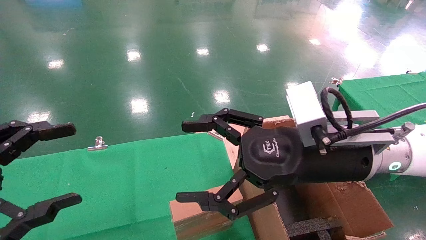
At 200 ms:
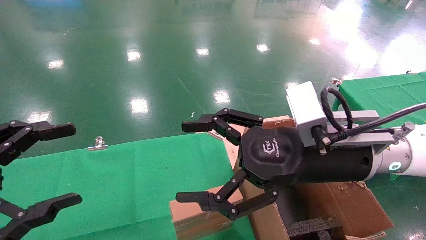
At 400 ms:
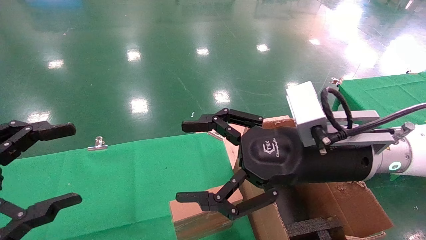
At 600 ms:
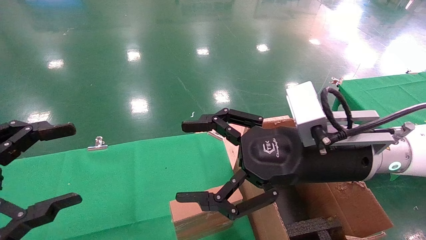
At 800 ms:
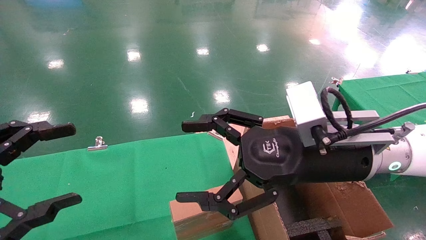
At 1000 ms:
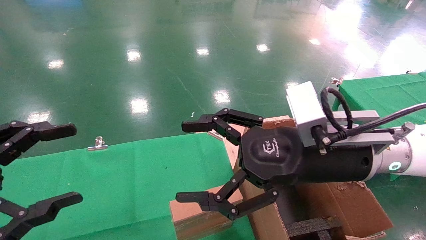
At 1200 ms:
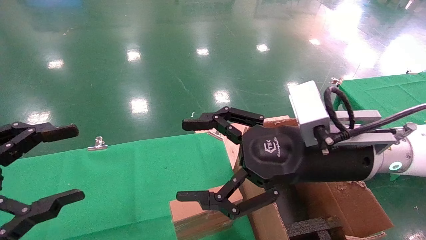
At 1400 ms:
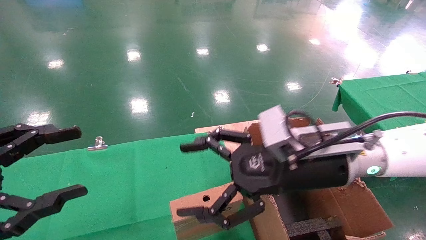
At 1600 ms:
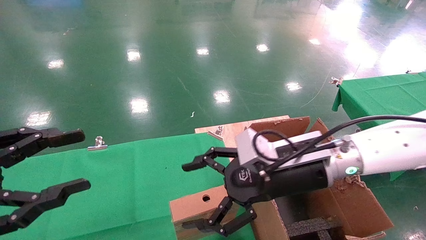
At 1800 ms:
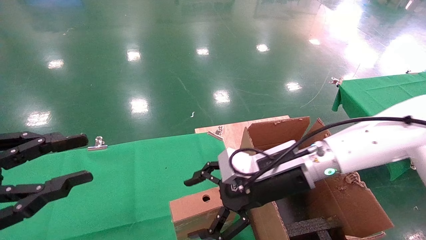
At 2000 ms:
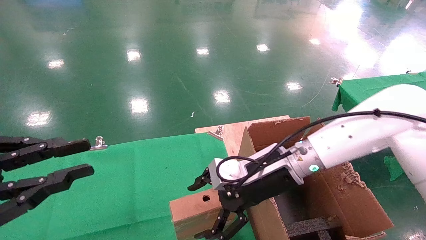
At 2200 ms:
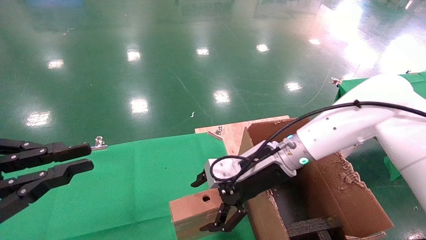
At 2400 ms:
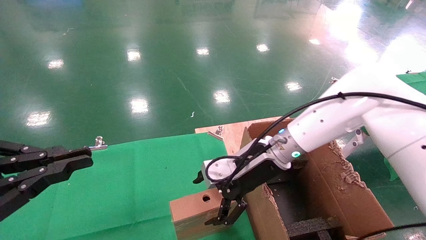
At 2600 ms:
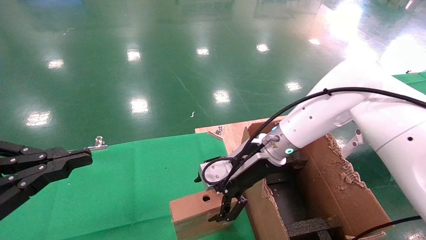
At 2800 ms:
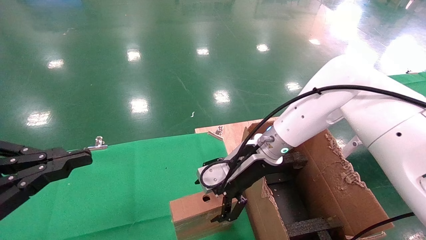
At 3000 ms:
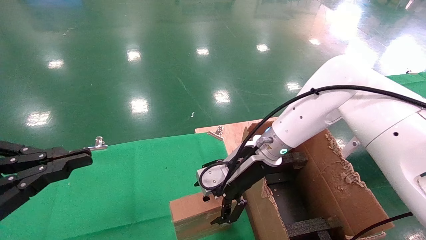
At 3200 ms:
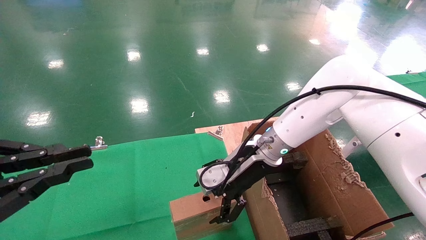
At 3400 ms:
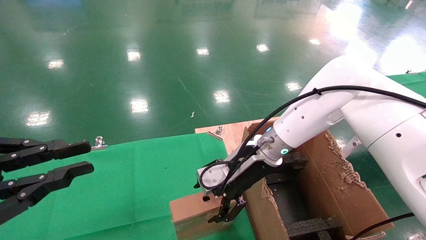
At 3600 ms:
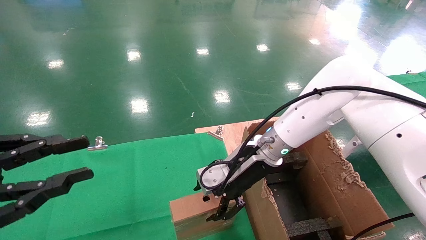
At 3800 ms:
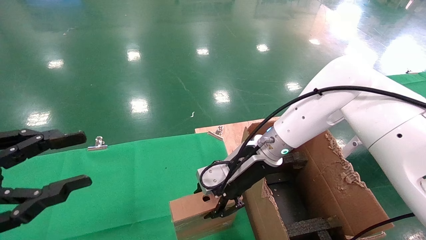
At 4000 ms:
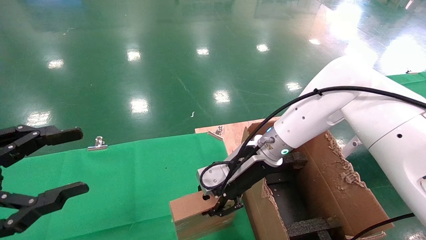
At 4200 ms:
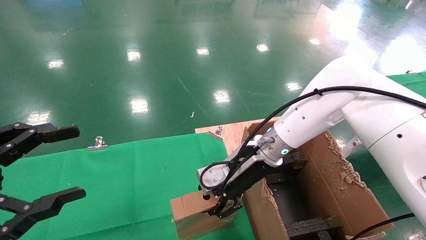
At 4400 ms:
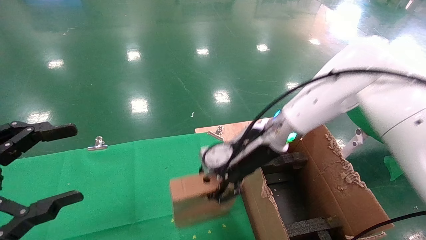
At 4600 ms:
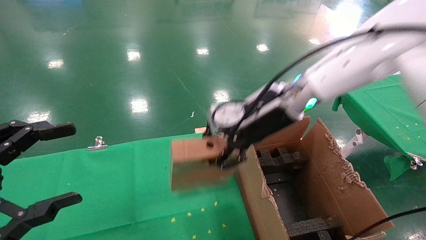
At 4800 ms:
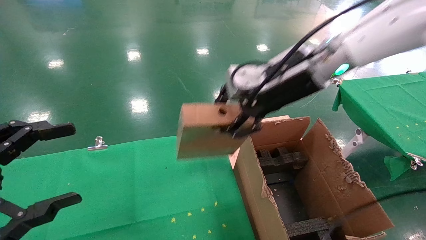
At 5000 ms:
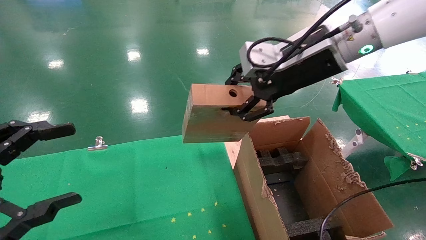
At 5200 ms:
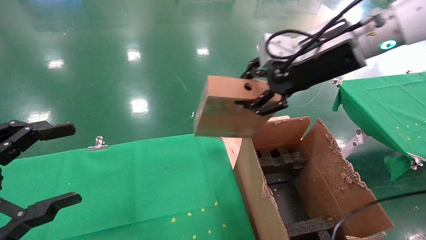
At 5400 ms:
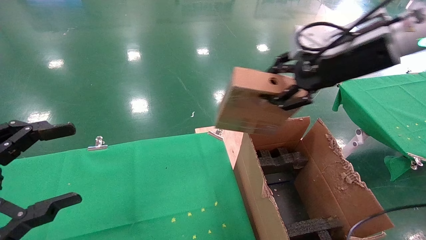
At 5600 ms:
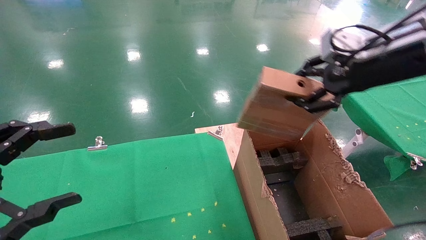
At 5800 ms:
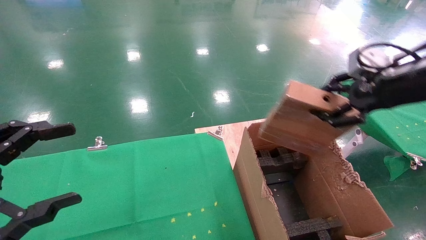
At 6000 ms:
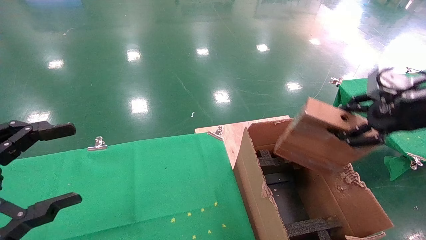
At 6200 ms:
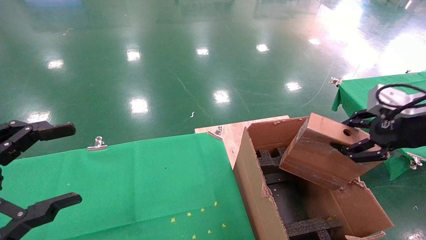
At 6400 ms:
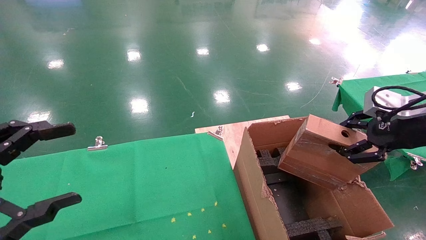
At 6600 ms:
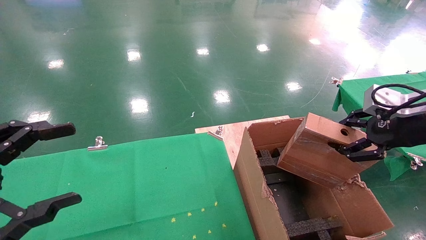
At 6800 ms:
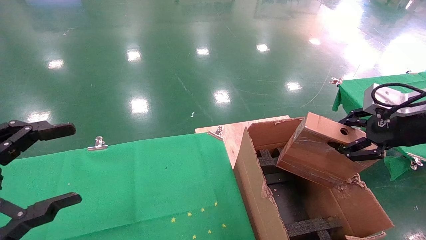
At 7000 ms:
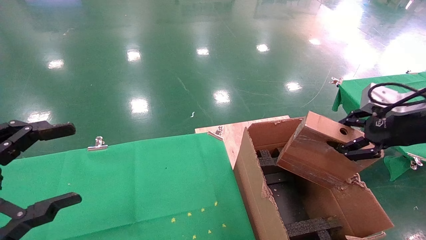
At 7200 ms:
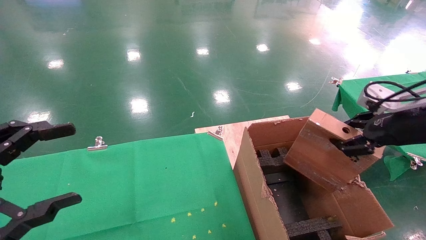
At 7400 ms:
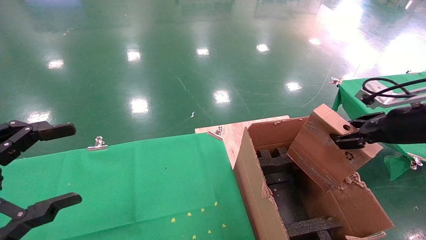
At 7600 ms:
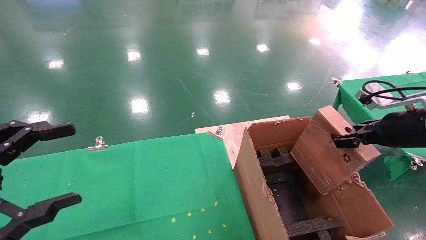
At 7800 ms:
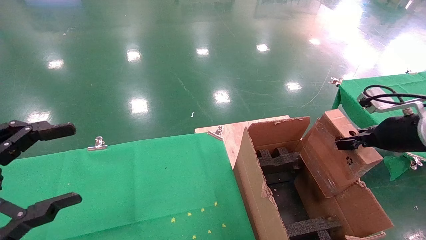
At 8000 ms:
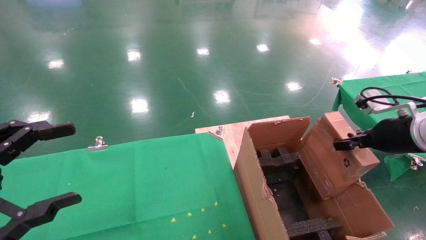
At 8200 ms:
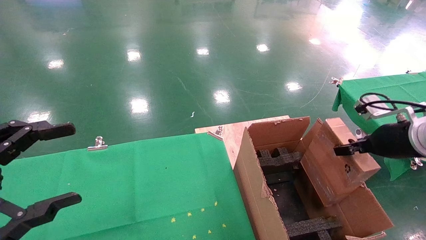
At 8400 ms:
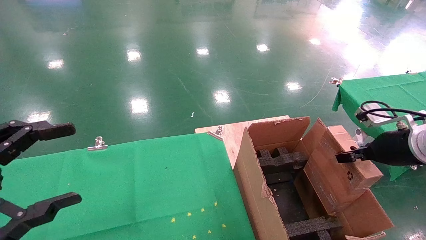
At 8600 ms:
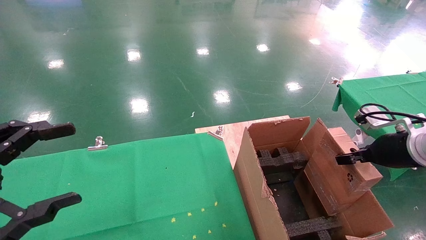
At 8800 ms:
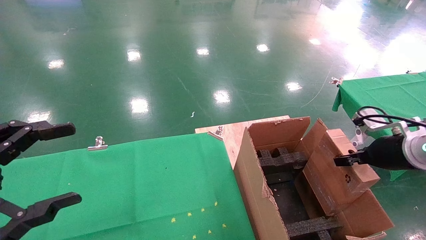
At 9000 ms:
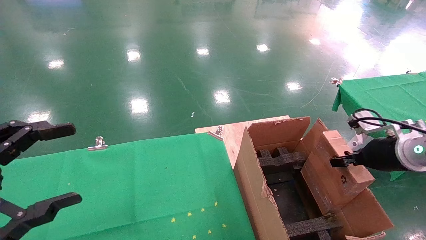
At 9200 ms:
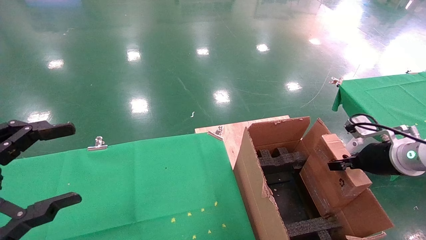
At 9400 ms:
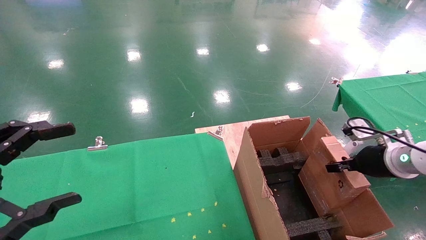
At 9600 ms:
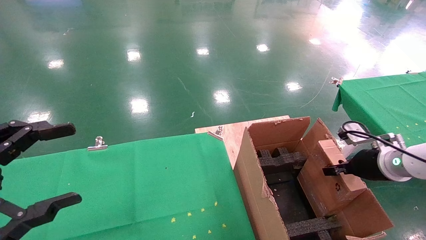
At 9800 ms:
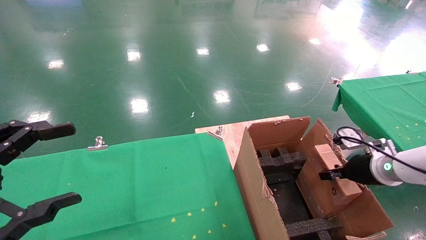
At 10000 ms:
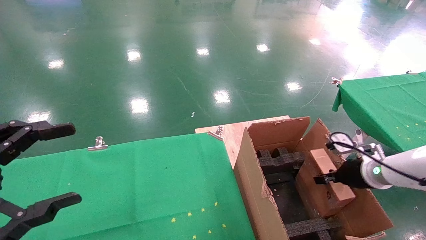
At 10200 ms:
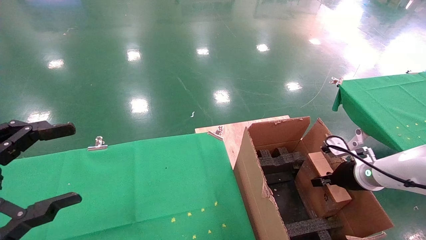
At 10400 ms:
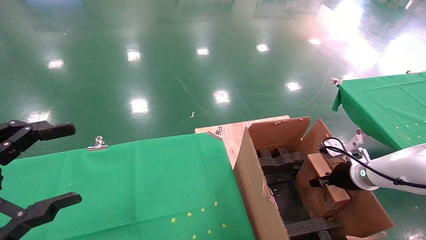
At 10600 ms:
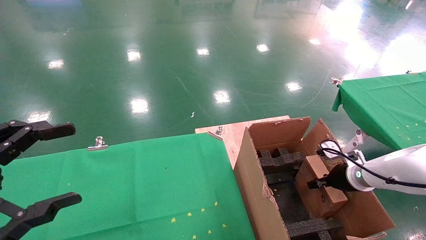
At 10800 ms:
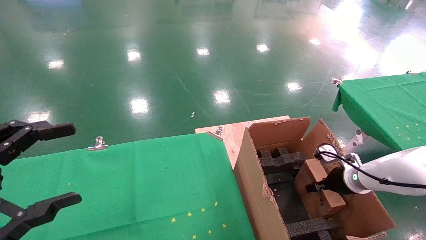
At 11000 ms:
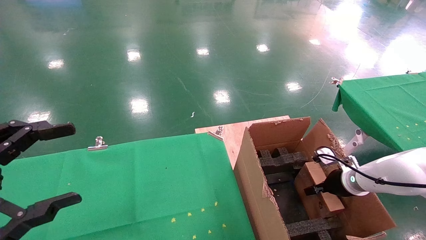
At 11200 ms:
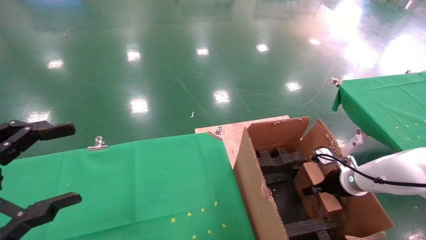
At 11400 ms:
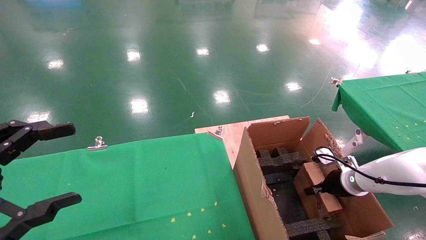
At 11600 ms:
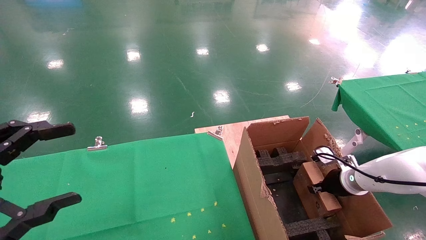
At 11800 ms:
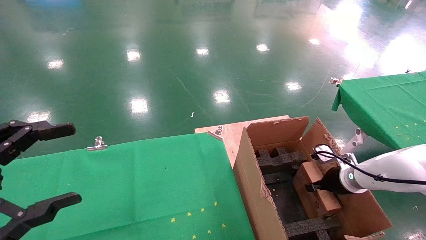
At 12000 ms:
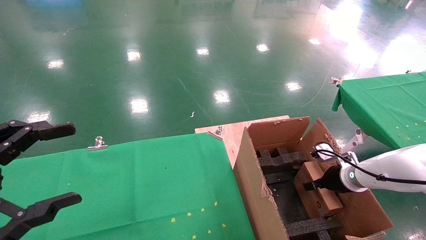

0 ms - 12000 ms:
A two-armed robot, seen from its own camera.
Task of the whole recording: using a robotic arm to pick up a cardboard box and palace it the carton.
Step, 1000 ms - 4000 ms: Pick up the mouse and the power cord paper box.
0 ms - 1600 ms: The right gripper shifts by roughly 5 cm.
1600 ms - 3000 ms: The right gripper is displaced forward by some 10 cm, while the left gripper closes its fingers.
3000 ms - 4400 ms: The right gripper shifts approximately 5 cm upward, and closes, while the left gripper opens its fingers.
4400 ms - 6000 ms: The right gripper heads to the right and backward, covering approximately 30 cm.
6000 ms - 7600 ms: The right gripper is displaced downward by roughly 5 cm.
7600 ms - 9000 ms: The right gripper heads downward, covering approximately 5 cm.
9000 ms - 10400 ms: The right gripper shifts approximately 10 cm downward and forward.
10400 ms - 12000 ms: The right gripper opens up.

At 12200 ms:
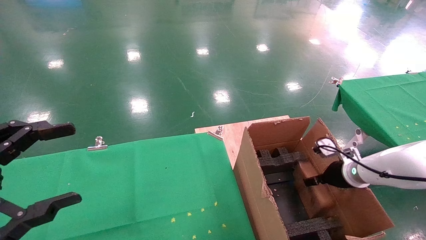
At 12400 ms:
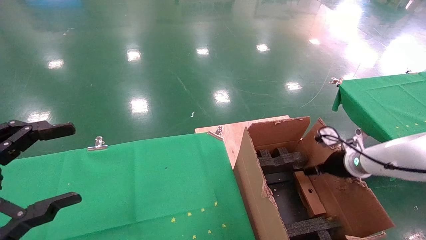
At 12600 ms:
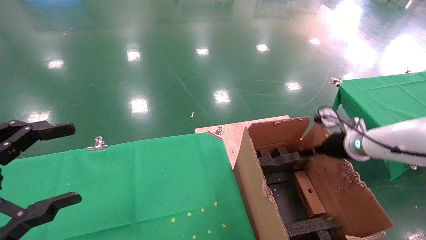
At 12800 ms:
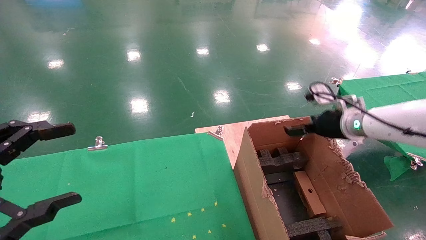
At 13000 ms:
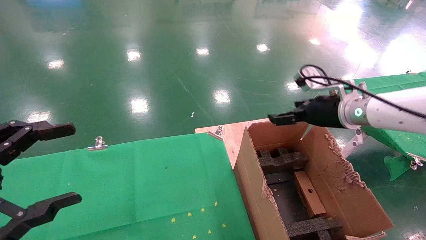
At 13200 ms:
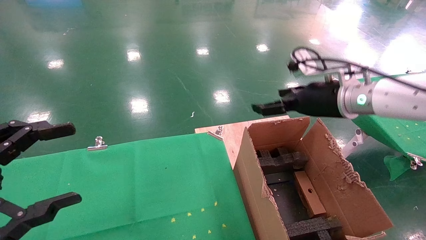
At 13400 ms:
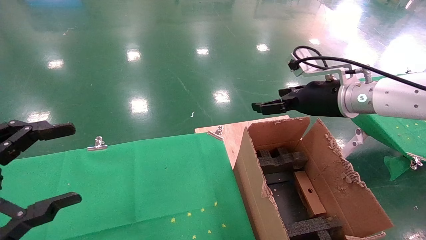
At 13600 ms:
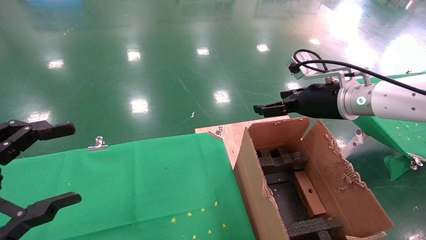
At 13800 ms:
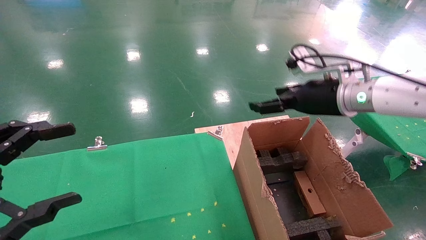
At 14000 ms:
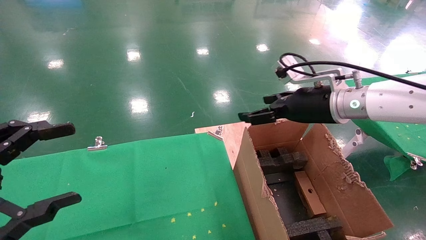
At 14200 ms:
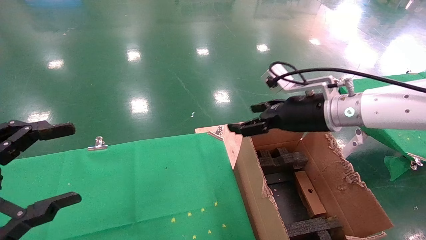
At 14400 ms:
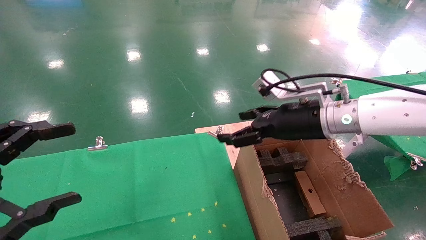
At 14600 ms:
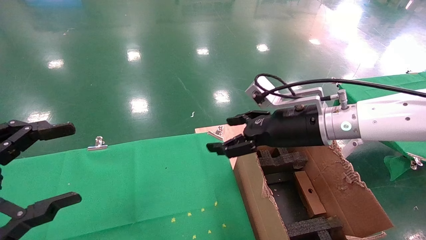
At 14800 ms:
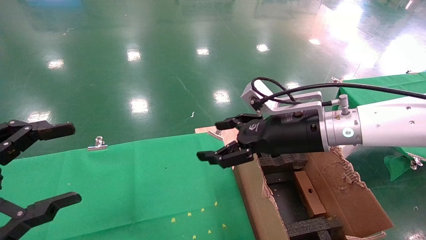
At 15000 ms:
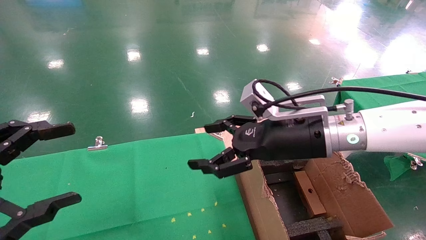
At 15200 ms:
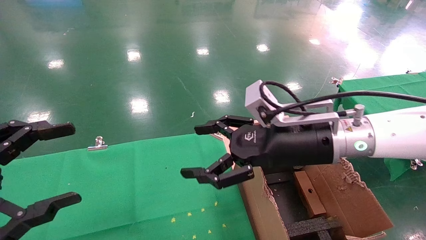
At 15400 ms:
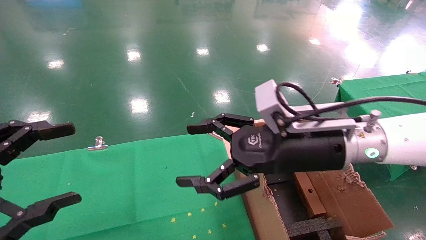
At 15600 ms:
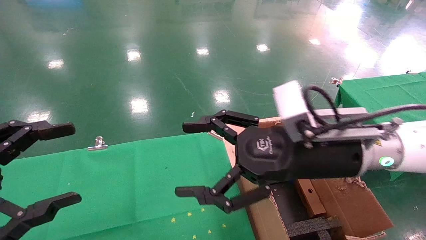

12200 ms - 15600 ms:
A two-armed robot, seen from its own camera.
Task of the whole recording: using a robotic arm to pick up a cardboard box and palace it the carton.
12200 ms - 13800 ms: The right gripper travels upward and to the left by roughly 25 cm, and opens.
13800 ms - 15600 ms: The right gripper moves backward and to the left, about 15 cm.

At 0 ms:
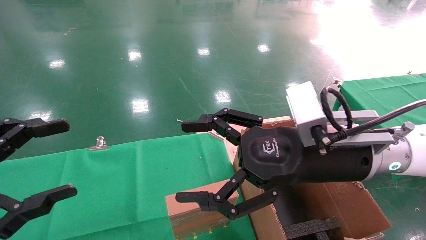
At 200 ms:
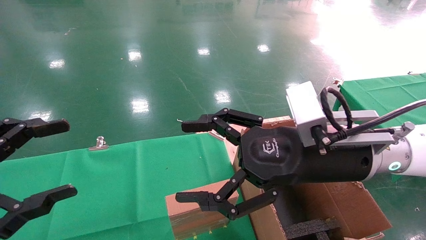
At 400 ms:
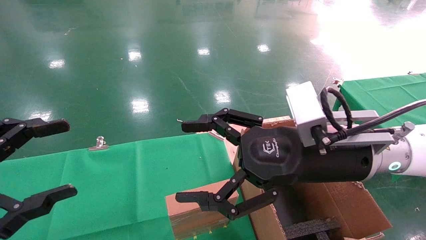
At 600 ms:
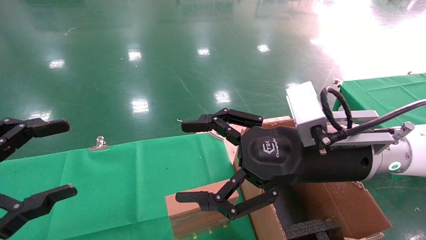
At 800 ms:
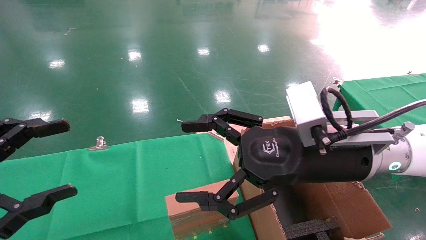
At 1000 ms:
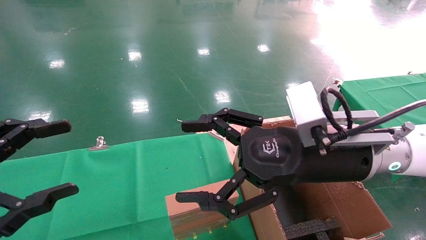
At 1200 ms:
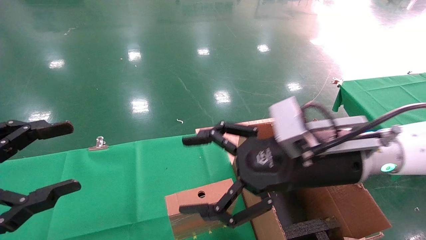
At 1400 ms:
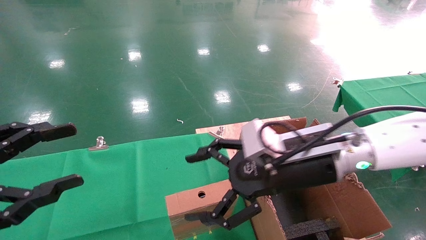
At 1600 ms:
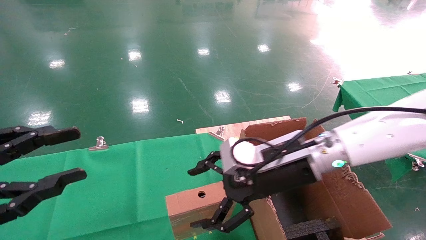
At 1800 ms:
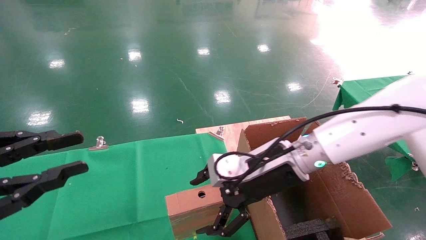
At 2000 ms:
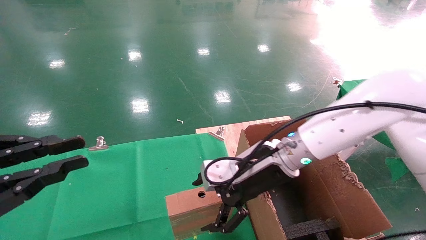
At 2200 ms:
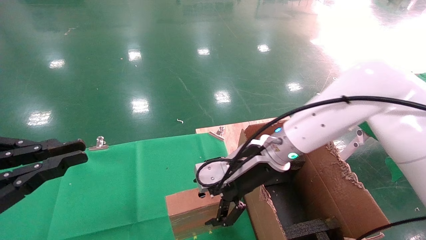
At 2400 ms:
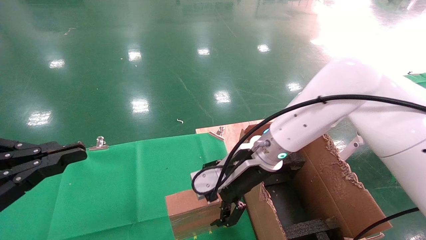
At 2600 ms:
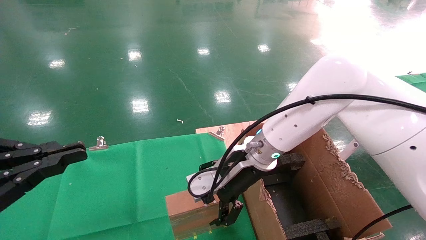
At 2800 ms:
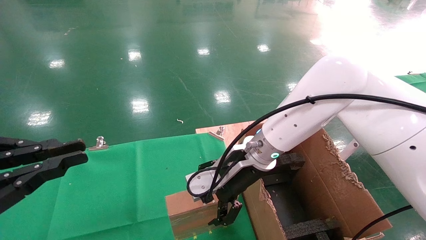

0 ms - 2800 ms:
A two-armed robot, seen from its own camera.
Task of the whole recording: using a robotic arm to pick up a cardboard box and palace it the carton.
0 ms - 1400 ms: The grippers move only a little.
1400 ms - 2800 ms: The left gripper closes. Meanwhile the right gripper travels forward and to the left by some 10 cm.
